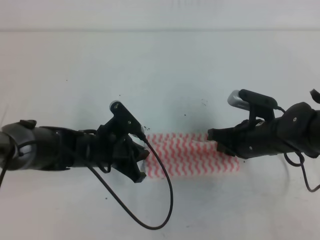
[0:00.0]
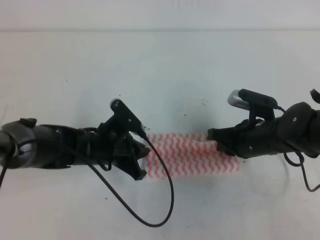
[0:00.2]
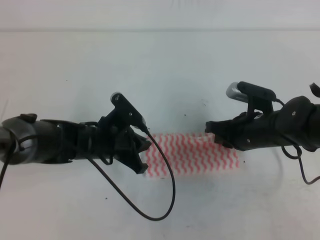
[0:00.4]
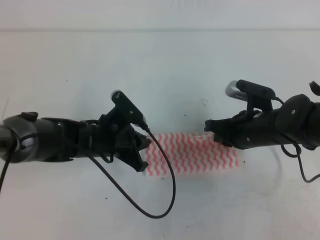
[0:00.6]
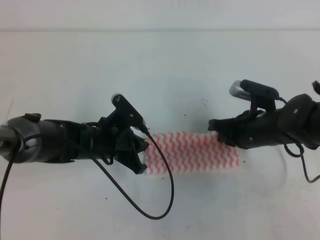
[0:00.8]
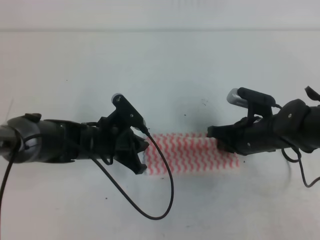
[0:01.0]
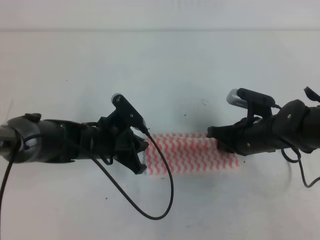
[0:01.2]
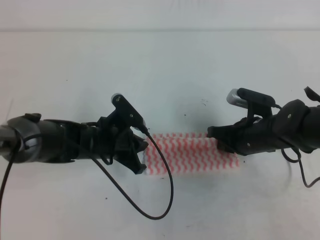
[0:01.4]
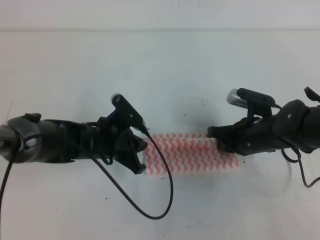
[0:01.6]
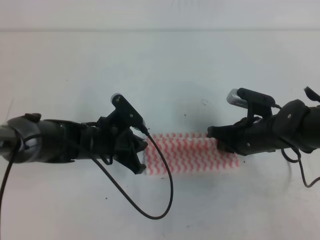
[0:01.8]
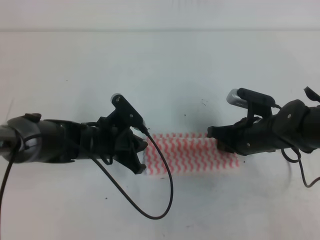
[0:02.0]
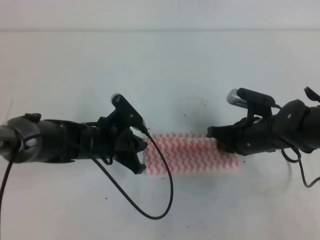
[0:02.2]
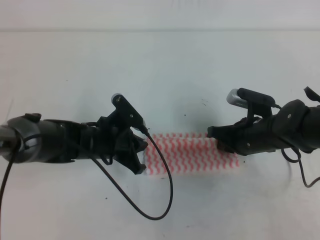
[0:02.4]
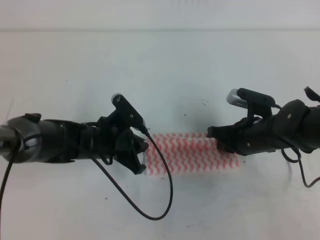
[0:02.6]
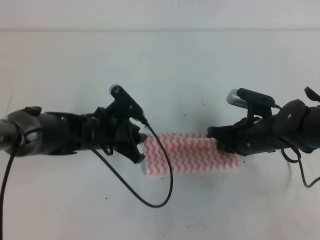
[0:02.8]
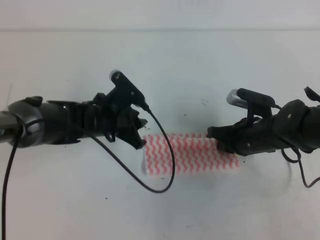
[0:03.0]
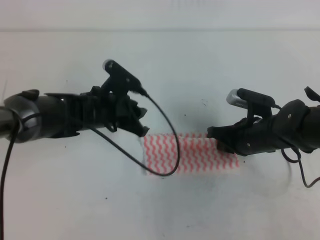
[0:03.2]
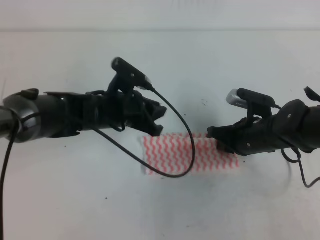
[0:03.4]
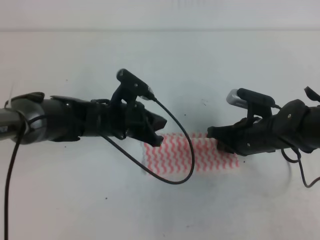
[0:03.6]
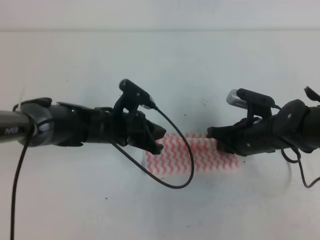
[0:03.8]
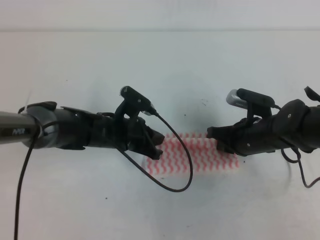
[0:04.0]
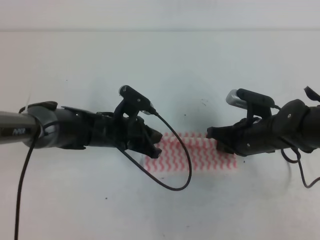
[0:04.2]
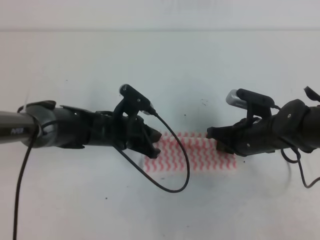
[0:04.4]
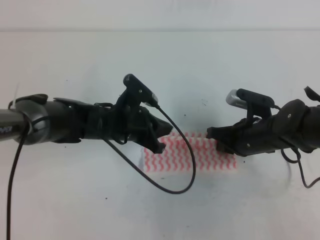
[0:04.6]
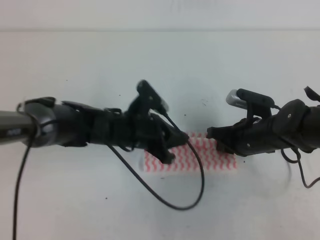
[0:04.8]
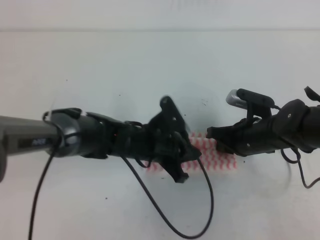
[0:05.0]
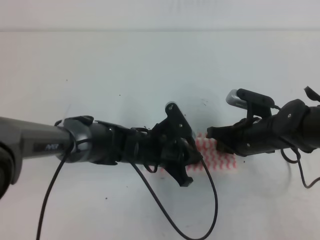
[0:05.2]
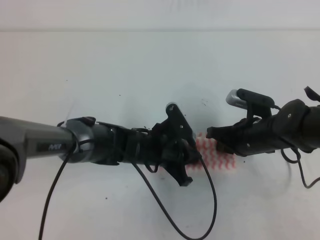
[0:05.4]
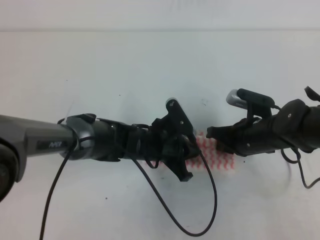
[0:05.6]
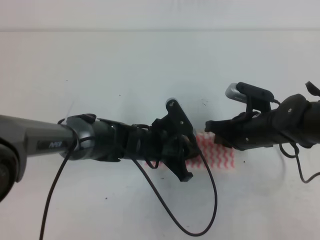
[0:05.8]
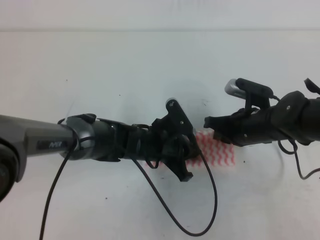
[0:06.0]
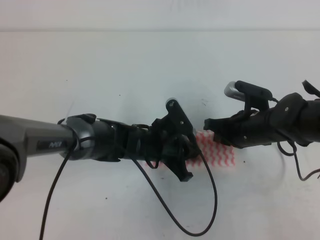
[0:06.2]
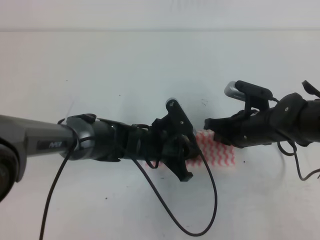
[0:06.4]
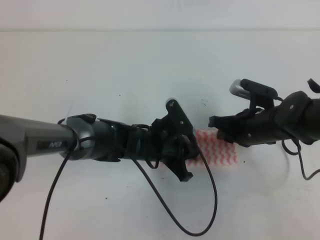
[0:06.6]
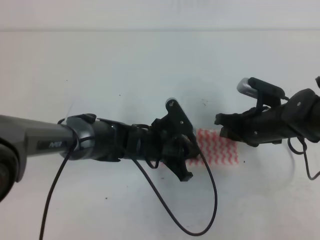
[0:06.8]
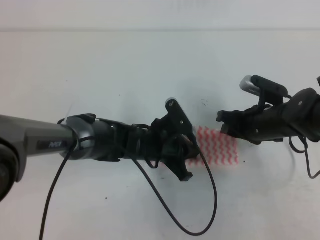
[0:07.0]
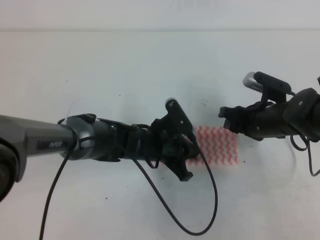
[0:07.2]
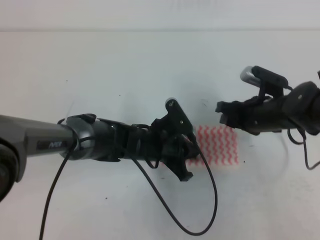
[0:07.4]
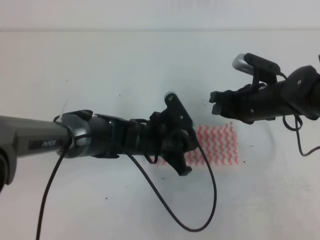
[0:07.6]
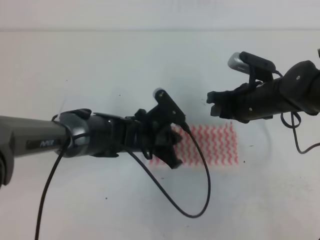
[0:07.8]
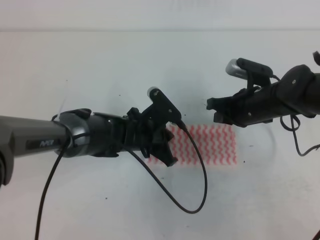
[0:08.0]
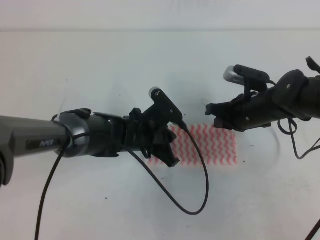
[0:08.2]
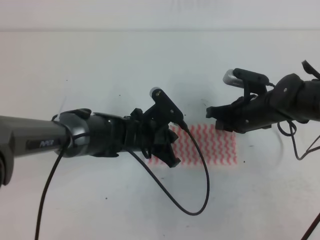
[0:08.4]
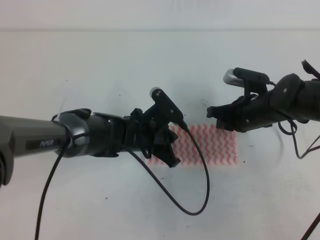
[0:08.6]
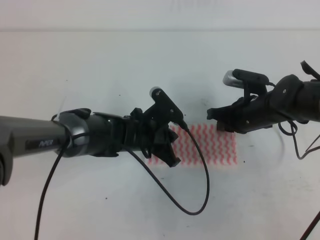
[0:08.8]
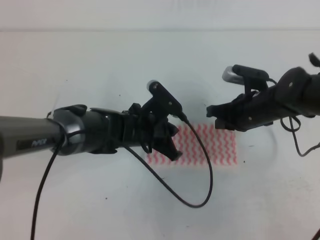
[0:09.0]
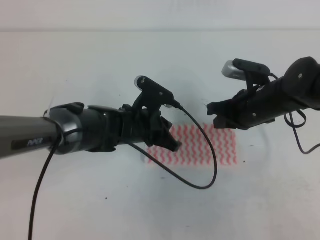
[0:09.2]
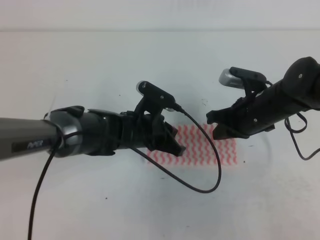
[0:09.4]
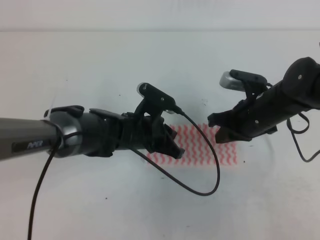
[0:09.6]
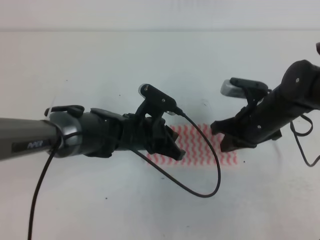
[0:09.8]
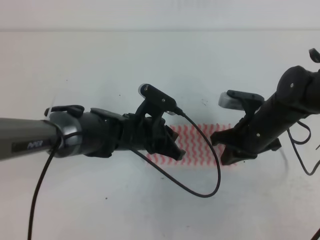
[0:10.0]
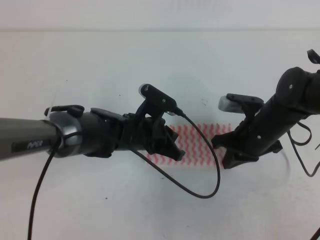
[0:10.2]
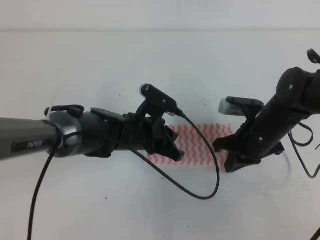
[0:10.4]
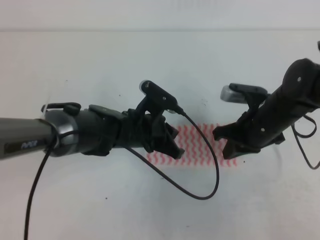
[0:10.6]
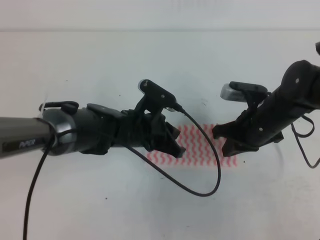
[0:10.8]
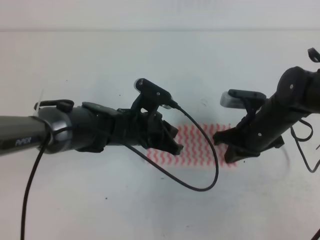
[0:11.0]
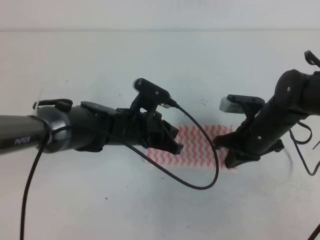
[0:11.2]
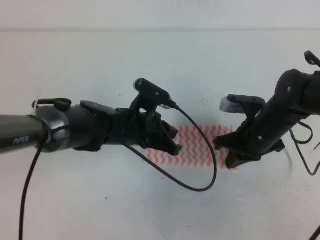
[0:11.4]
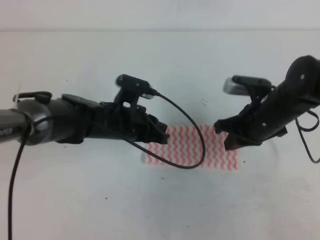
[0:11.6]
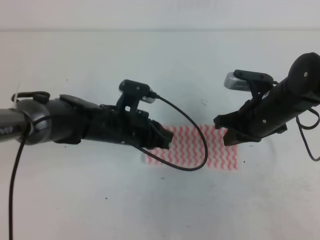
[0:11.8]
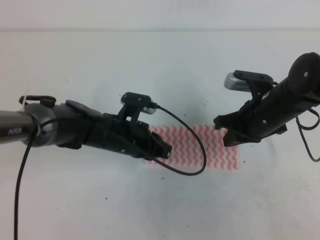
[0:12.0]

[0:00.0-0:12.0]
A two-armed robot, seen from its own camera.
0:00.0 to 0:01.6: The grippers move only a little.
0:01.6 to 0:03.0: The left gripper opens up.
0:03.0 to 0:04.4: The left gripper closes its fingers.
0:04.4 to 0:06.0: The left gripper moves to the right, roughly 5 cm.
0:06.0 to 0:07.6: The right gripper opens up.
0:07.6 to 0:09.0: The right gripper closes its fingers.

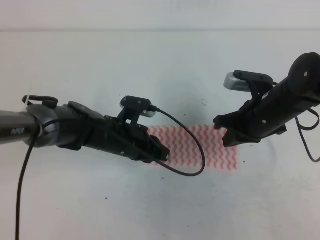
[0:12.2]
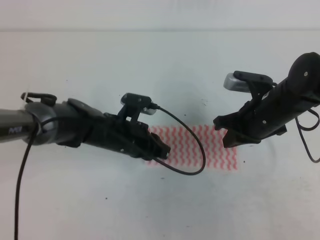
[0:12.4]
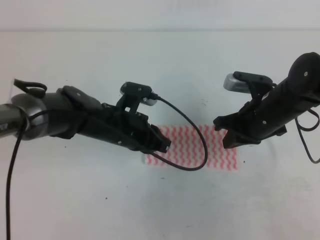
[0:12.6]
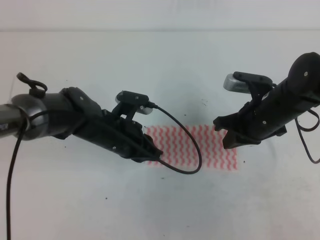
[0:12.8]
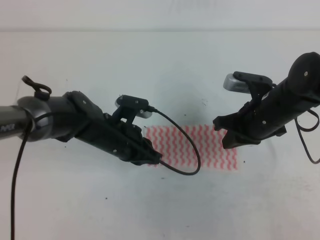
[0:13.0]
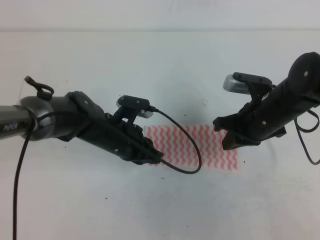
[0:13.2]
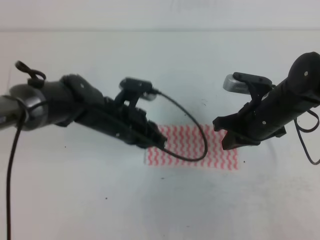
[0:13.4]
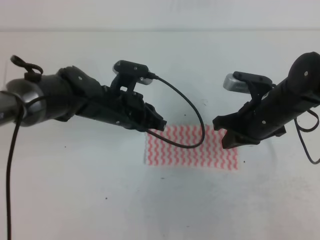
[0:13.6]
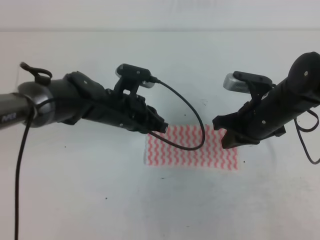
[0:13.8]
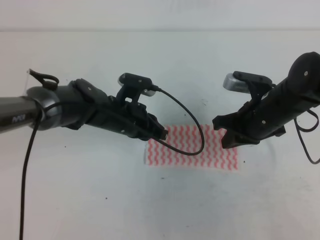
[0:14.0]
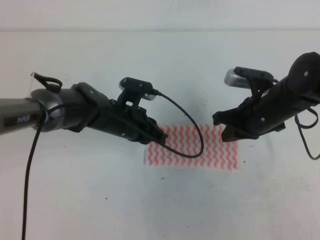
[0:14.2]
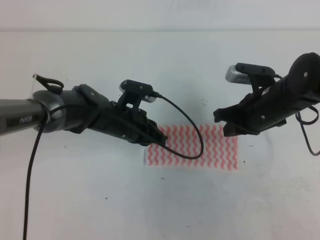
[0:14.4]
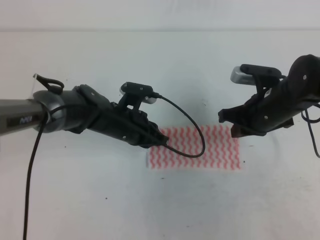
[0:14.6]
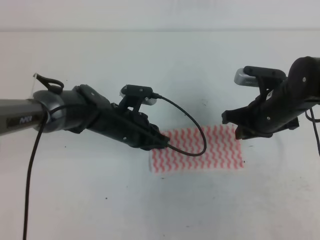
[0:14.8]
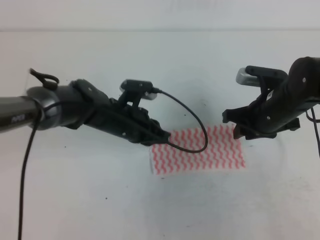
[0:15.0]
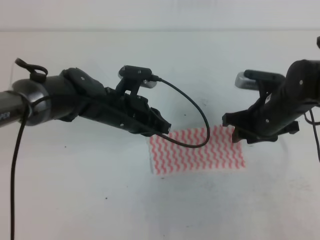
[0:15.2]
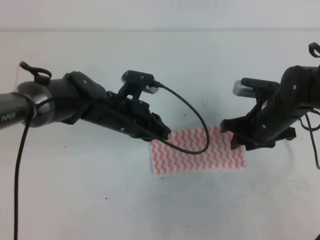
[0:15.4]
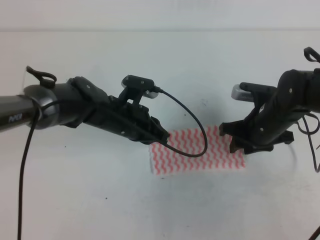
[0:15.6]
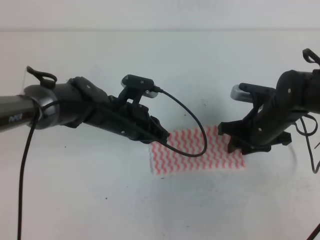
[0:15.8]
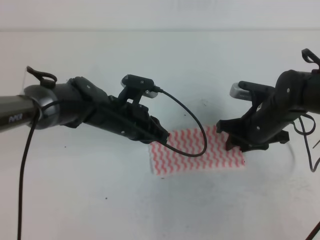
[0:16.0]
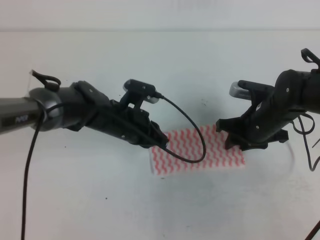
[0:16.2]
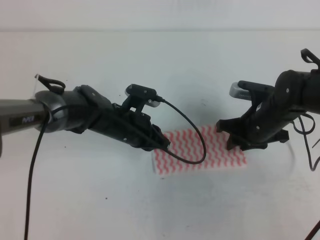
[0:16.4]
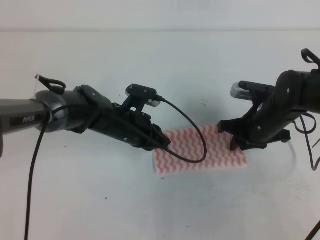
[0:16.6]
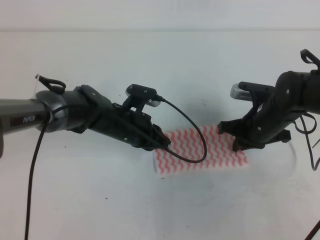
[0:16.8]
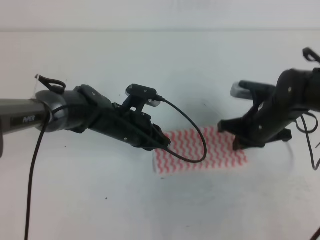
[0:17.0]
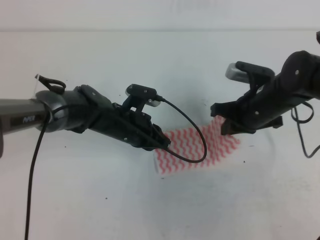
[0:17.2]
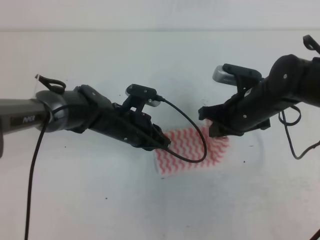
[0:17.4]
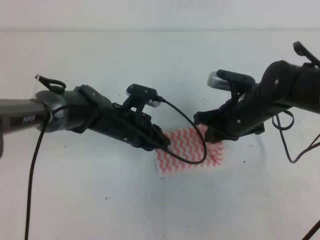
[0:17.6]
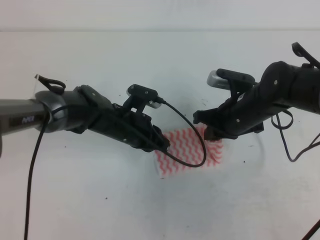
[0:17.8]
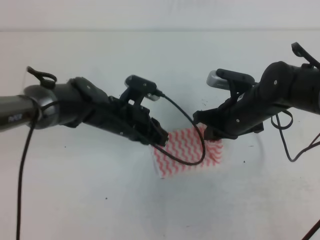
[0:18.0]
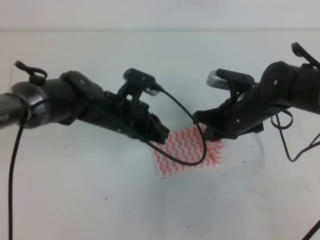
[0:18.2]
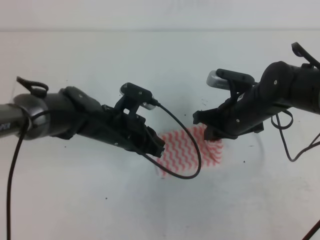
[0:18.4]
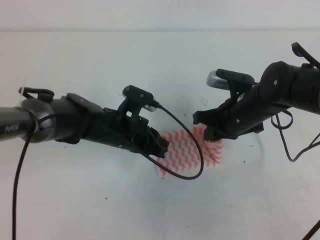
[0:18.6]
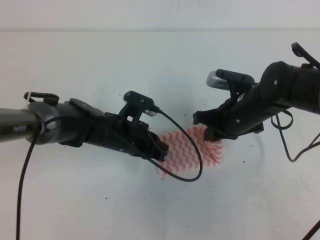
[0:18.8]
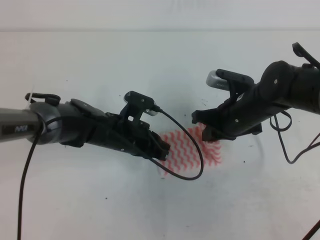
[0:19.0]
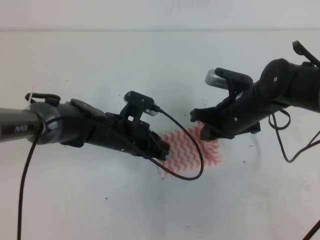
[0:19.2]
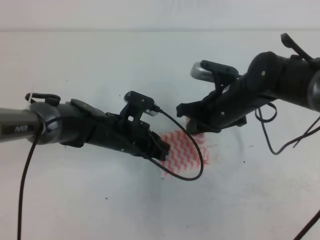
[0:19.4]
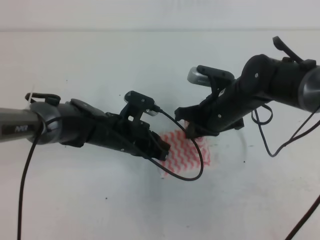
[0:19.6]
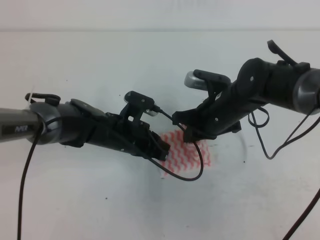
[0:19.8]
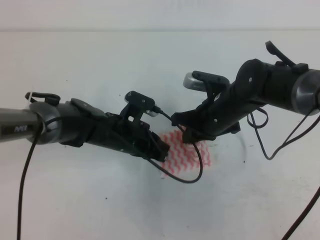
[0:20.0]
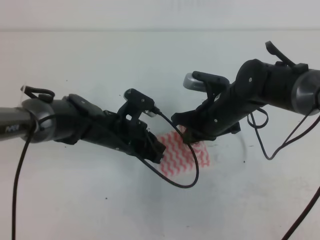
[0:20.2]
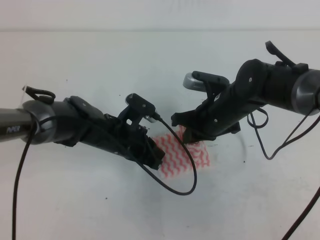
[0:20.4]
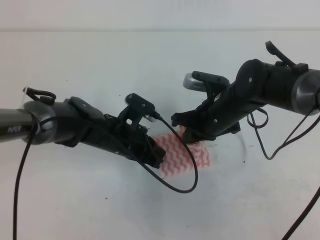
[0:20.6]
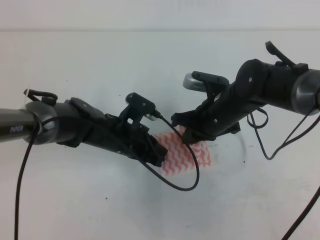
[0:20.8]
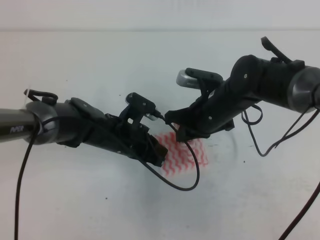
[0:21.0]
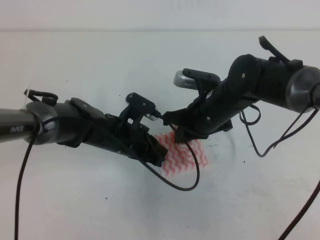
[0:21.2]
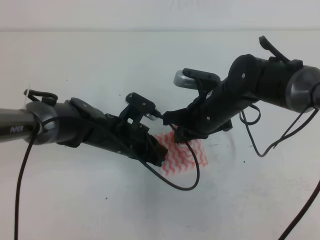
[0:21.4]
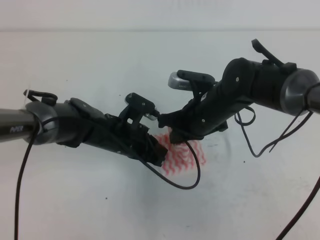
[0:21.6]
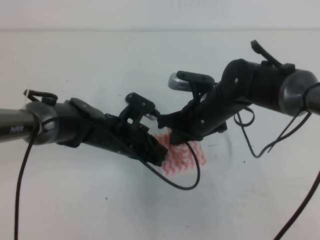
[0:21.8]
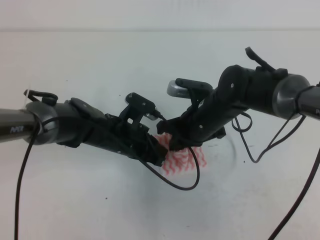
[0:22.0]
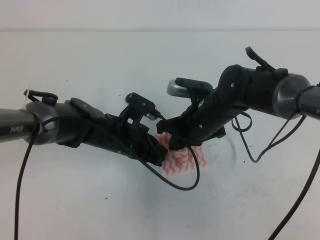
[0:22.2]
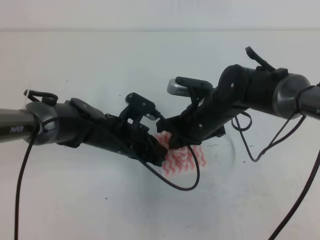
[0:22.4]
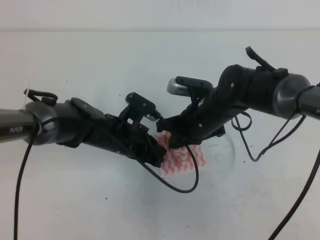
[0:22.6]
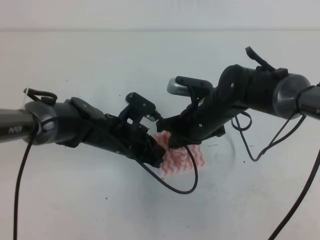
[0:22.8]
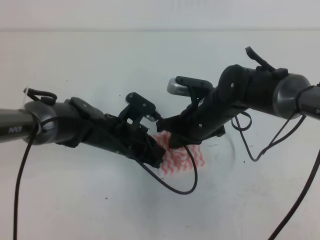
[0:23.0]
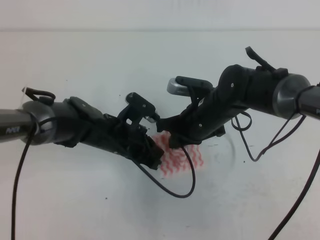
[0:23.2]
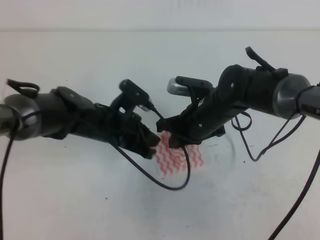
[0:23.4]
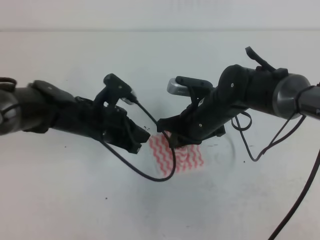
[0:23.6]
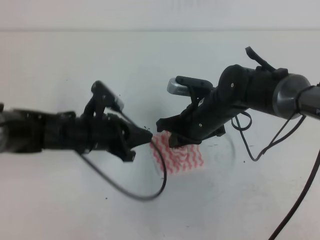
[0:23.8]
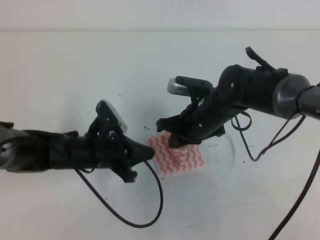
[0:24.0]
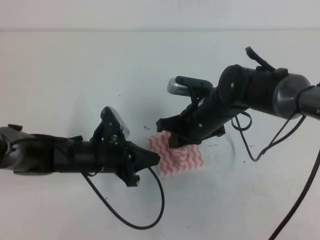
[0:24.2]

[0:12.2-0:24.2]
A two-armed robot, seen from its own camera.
0:12.2 to 0:13.8: The grippers make only small movements.
0:13.8 to 0:15.2: The right gripper opens up.
0:15.2 to 0:16.6: The right gripper closes up.
0:16.6 to 0:18.2: The right gripper ends up approximately 5 cm from where it was, and closes up.
0:19.8 to 0:22.6: There are only small adjustments of the grippers.
